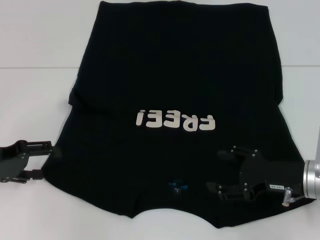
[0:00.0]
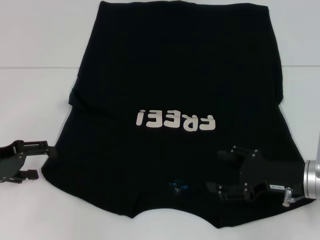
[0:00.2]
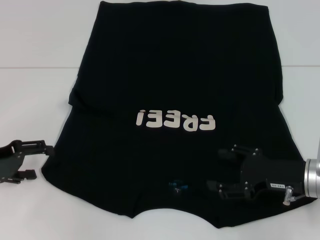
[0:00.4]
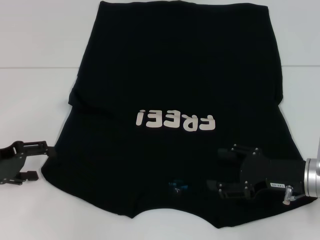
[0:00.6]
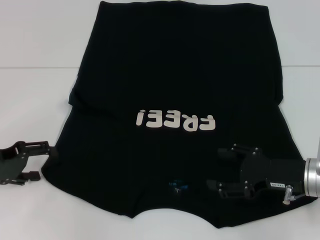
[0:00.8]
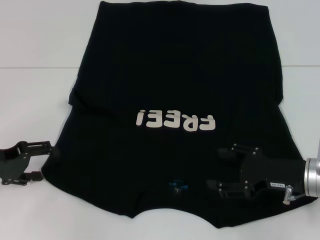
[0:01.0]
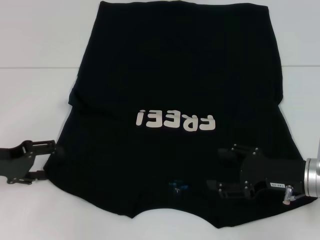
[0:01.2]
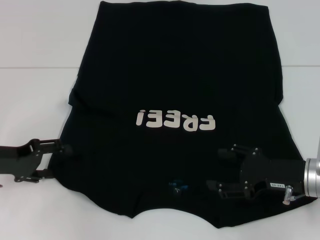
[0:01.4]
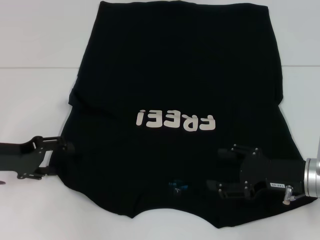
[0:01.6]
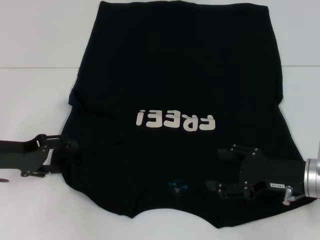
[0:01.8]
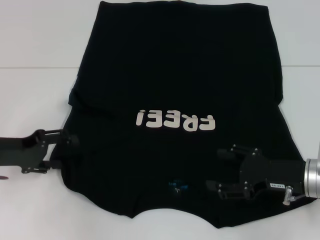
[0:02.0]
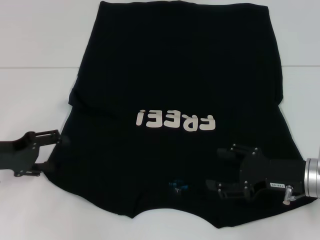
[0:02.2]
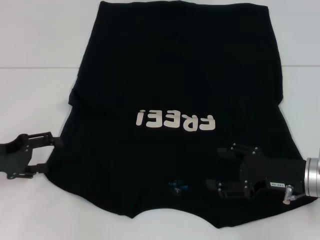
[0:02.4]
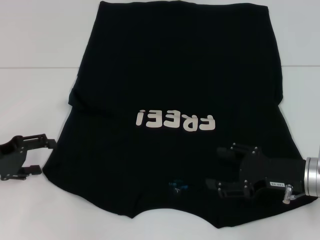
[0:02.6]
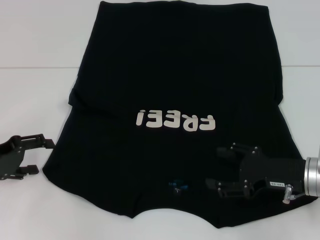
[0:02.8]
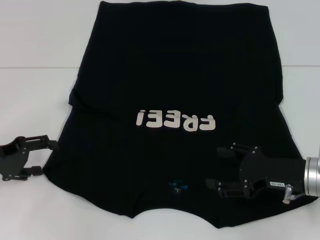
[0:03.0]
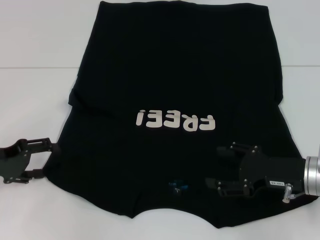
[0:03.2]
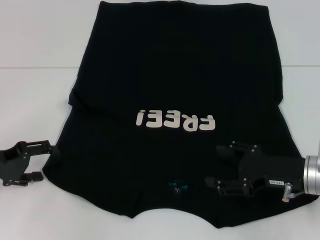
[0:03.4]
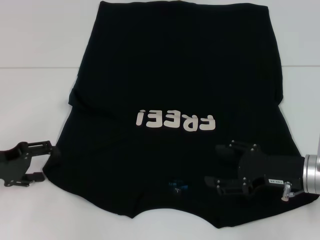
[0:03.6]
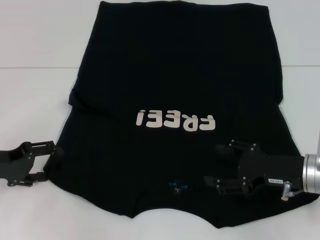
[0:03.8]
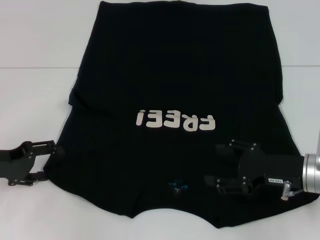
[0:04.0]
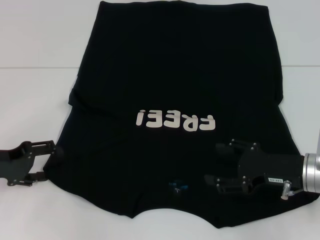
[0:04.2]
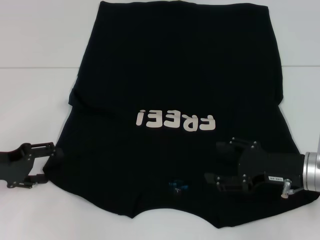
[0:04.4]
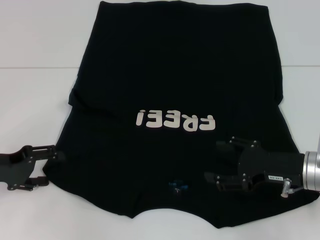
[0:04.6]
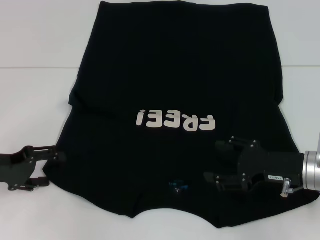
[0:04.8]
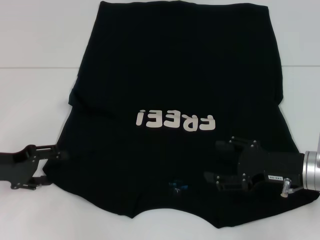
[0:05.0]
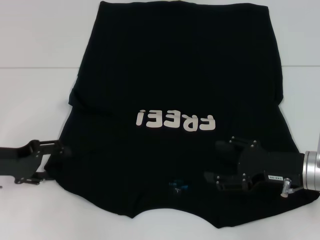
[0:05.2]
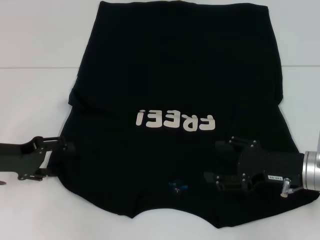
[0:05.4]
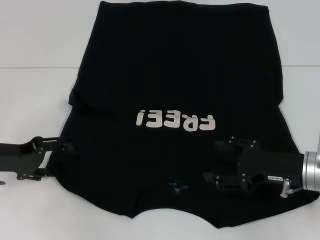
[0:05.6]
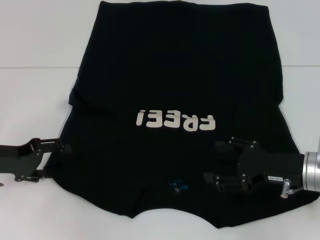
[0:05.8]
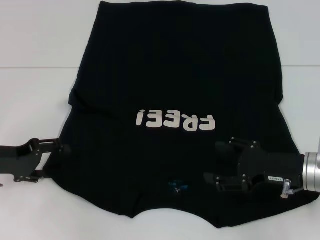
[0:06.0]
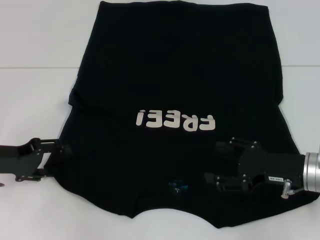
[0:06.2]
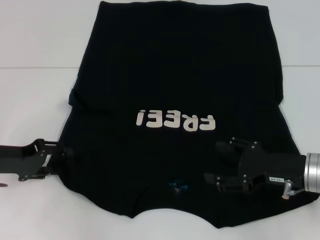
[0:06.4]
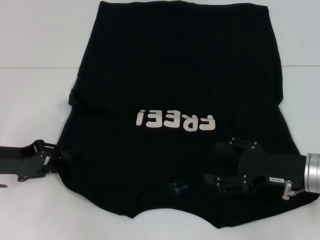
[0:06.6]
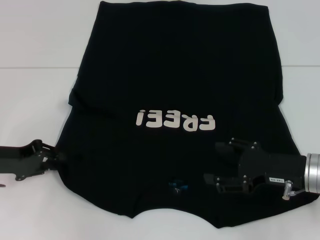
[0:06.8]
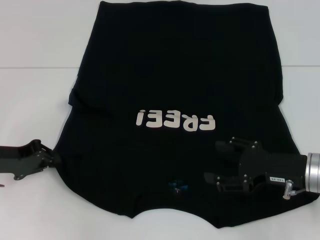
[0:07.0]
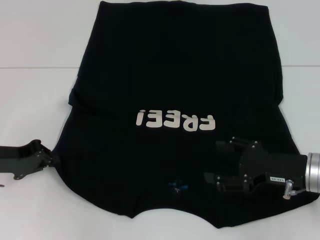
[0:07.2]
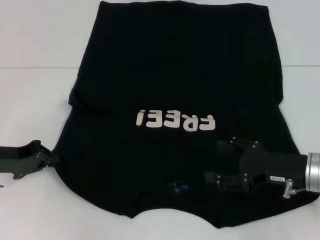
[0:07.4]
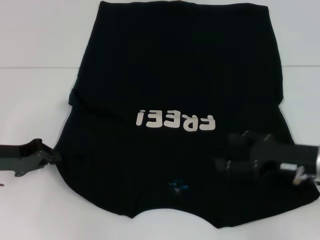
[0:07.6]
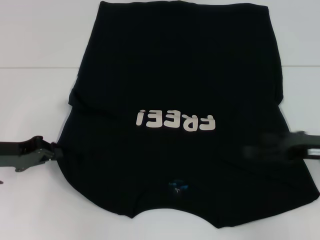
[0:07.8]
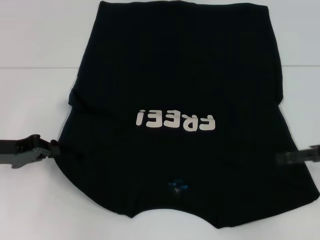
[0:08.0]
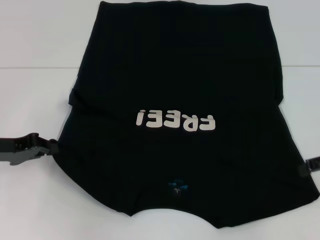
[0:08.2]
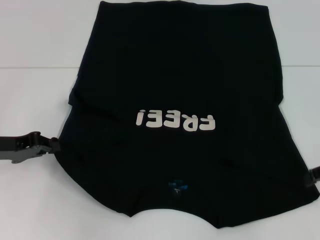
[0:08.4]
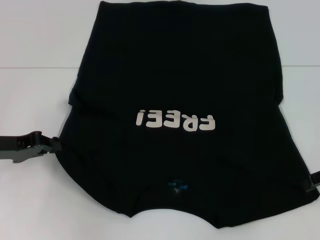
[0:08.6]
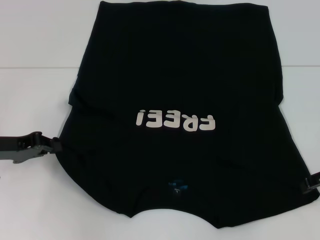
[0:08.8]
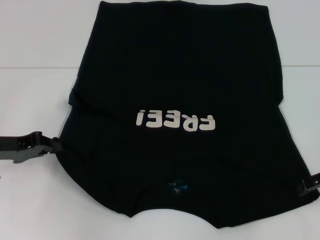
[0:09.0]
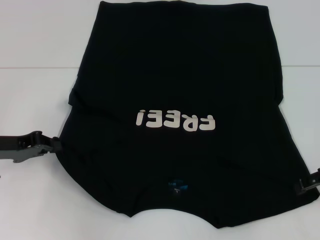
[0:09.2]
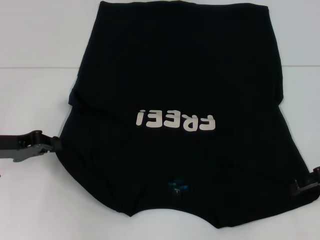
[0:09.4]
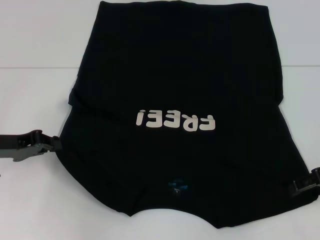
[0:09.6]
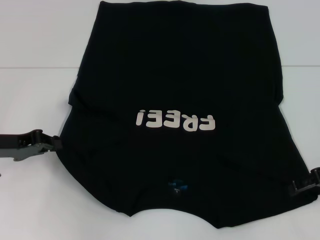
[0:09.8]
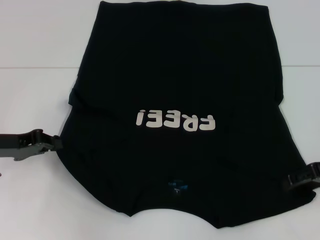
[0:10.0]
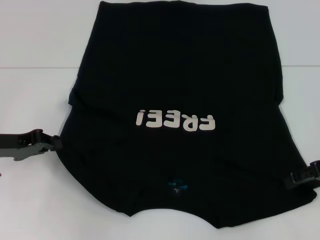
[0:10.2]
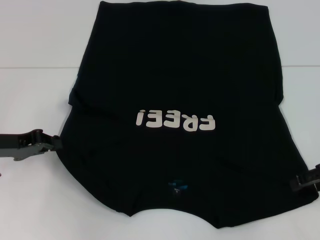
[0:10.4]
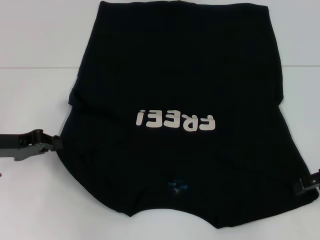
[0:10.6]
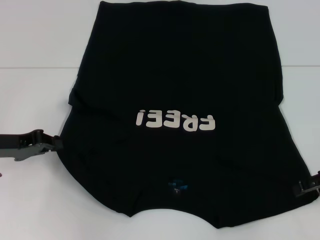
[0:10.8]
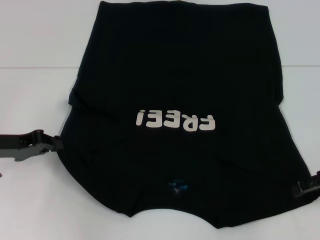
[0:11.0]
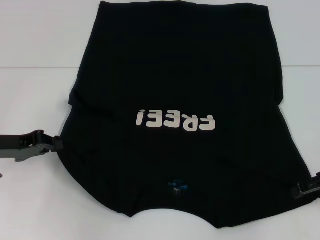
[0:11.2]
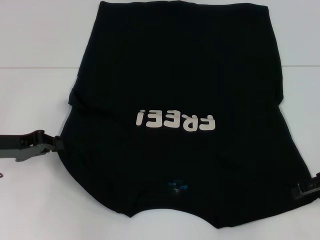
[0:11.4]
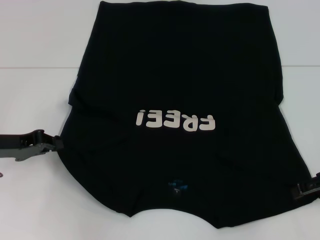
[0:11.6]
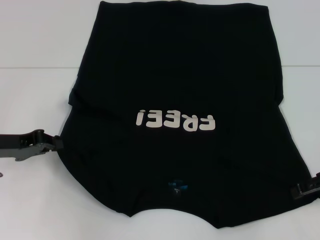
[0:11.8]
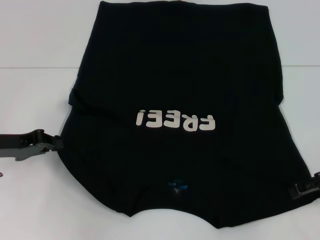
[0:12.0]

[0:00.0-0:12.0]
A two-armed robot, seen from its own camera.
Step, 0:00.0 to 0:07.6: Grab the bottom left corner with your left hand.
0:00.0 to 0:03.0: The grippers make only small movements.
0:03.0 to 0:04.4: The two grippers keep their place.
0:04.4 to 0:06.0: The grippers make only small movements.
0:06.0 to 0:07.6: The left gripper closes.
0:07.6 to 0:09.0: The right gripper goes about 10 cm to the right and upward.
0:09.0 to 0:10.4: The grippers stay close to where they were, moving slightly.
0:10.4 to 0:12.0: Neither gripper changes place.

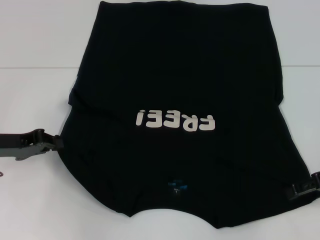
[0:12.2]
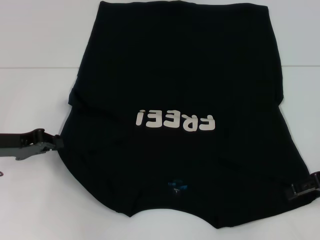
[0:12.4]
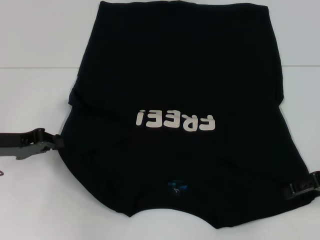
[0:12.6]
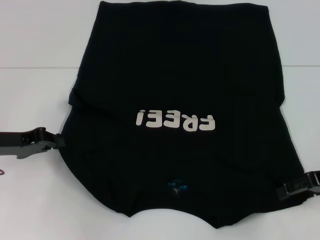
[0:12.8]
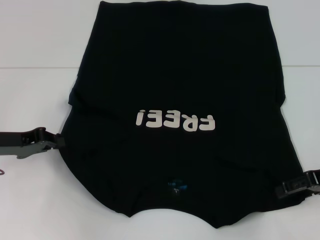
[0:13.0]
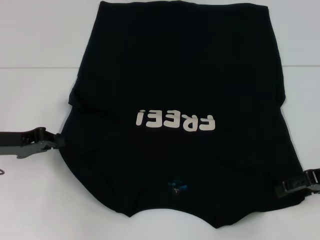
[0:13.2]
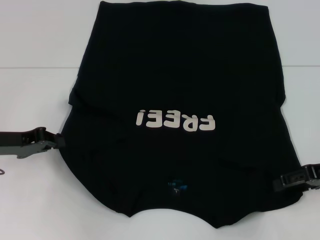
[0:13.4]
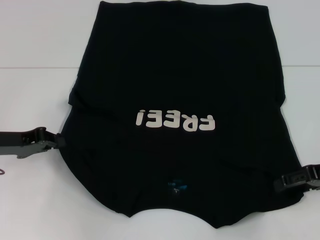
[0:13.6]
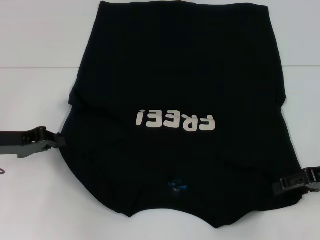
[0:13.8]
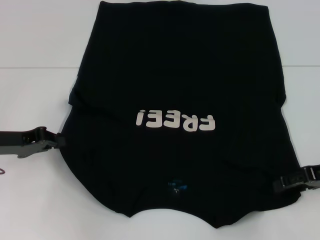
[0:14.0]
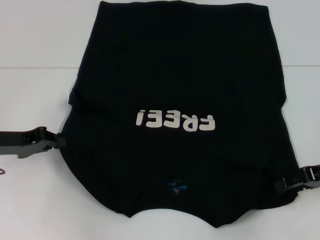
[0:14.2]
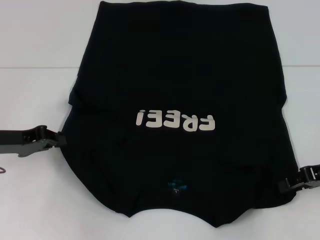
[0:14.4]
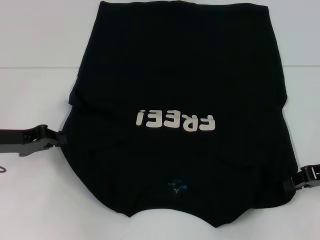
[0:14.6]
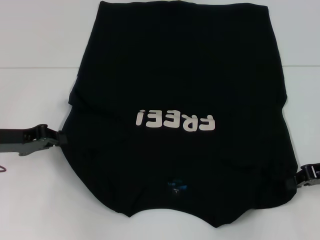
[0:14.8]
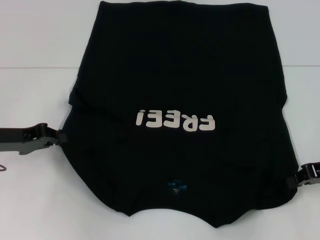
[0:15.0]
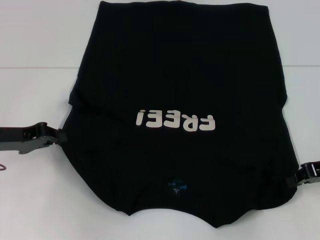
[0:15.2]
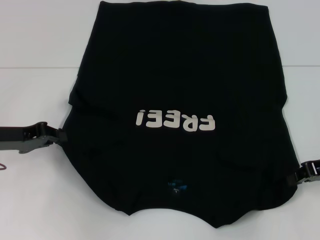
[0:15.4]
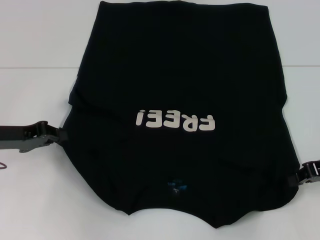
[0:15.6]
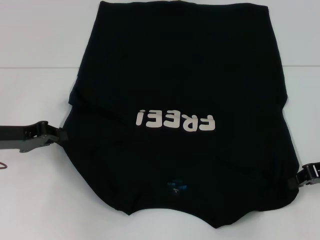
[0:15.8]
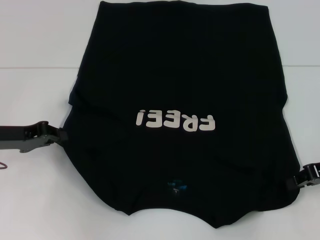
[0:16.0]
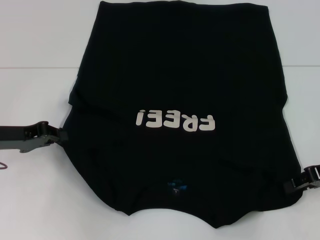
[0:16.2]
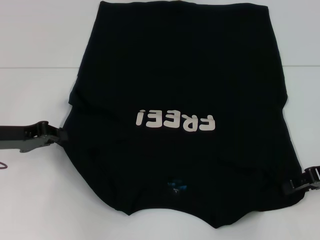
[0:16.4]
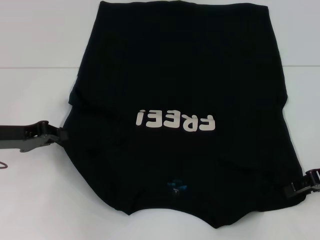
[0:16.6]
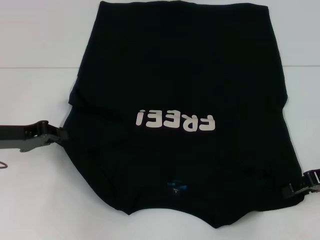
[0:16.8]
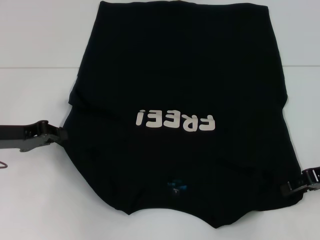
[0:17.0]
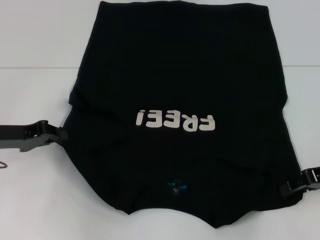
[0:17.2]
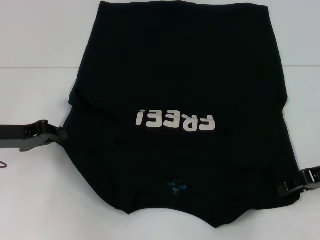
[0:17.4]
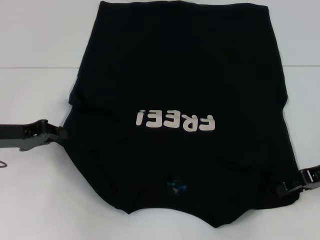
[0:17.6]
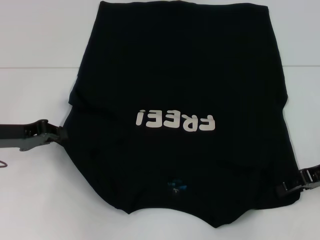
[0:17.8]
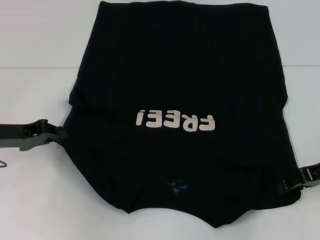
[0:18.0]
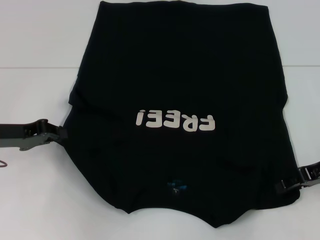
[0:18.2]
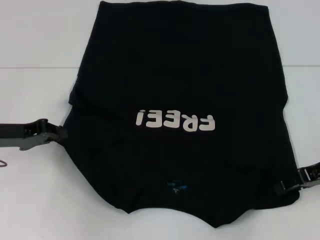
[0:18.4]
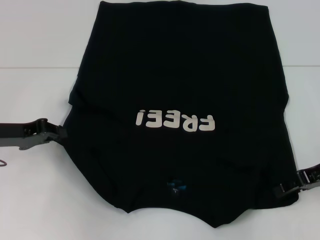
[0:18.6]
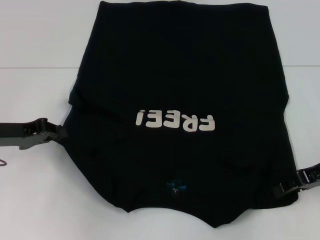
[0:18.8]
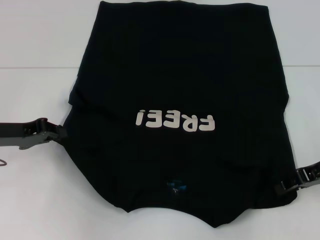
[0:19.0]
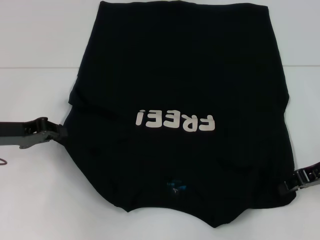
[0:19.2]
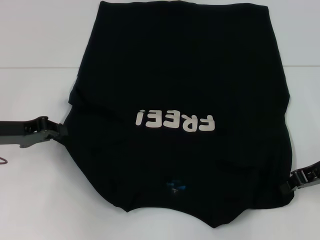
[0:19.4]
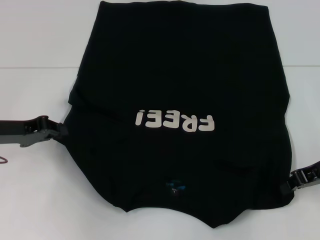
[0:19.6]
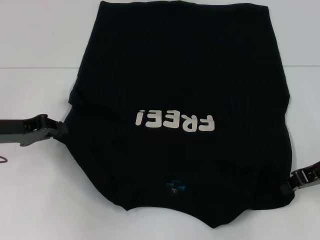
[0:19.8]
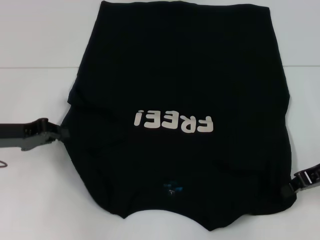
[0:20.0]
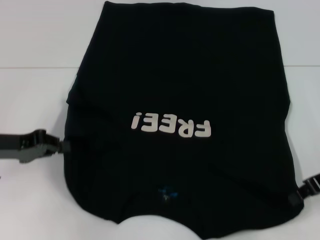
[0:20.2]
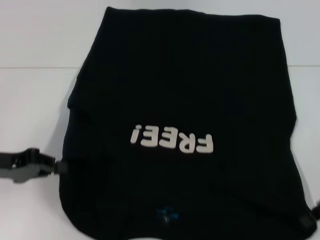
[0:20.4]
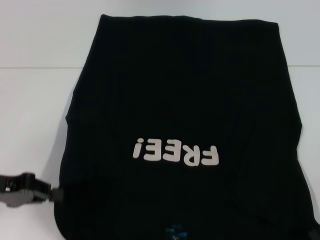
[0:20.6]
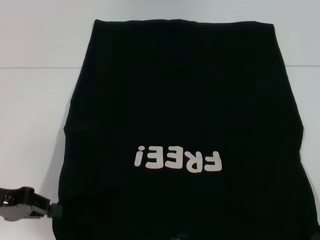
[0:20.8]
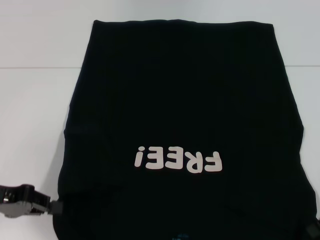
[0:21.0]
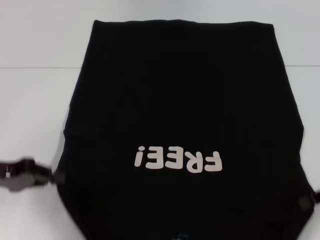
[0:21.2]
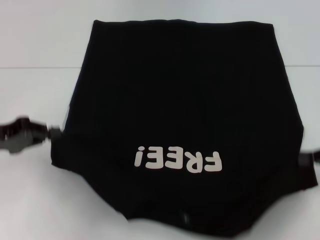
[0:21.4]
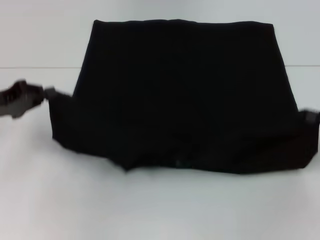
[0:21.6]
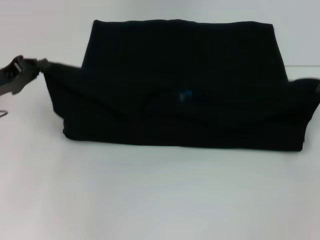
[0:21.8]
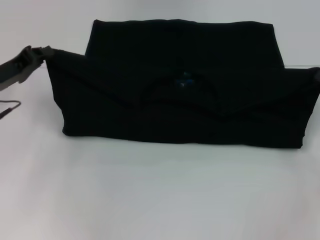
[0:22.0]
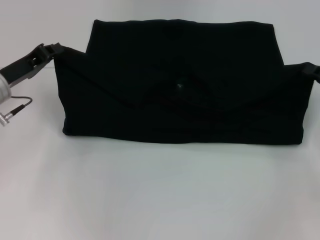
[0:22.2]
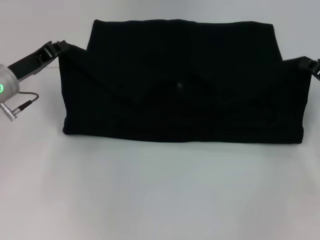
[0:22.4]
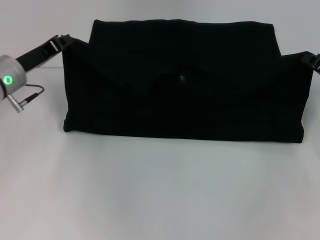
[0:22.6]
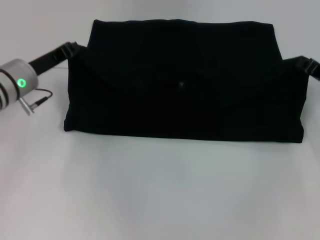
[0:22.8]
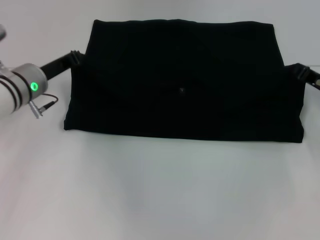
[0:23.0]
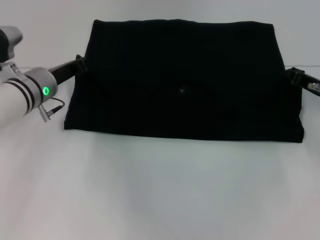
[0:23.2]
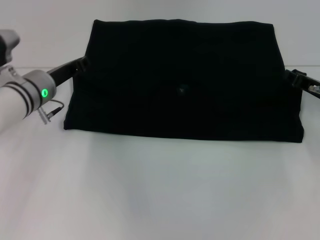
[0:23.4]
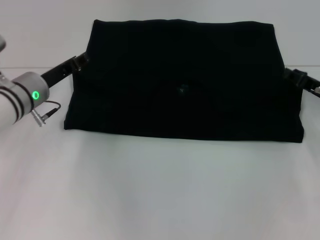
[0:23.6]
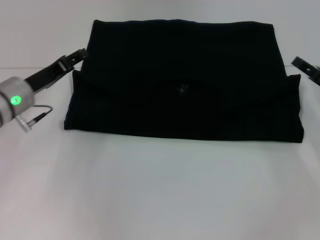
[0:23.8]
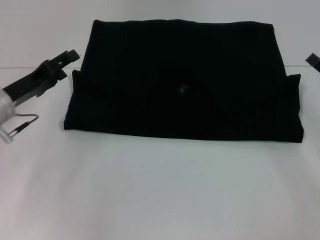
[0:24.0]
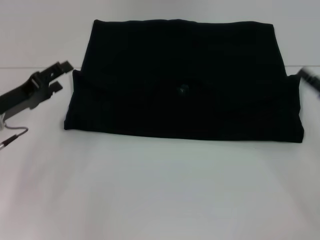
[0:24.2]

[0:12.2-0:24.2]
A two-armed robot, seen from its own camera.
Step, 0:12.2 to 0:19.8: Grab the bottom right corner with your right hand.
Step, 0:20.0 to 0:23.8: Fold the clothes with your left hand.
Step, 0:20.0 to 0:23.8: Fold the clothes with your right hand.
0:12.2 to 0:13.8: There are only small adjustments of the grippers.
0:13.8 to 0:15.2: The right gripper closes.
0:15.2 to 0:16.6: The right gripper opens its fingers.
0:16.6 to 0:18.2: The grippers stay close to where they were, moving slightly.
0:18.2 to 0:19.8: The right gripper closes its fingers.
0:19.8 to 0:21.2: The left gripper travels backward by approximately 5 cm, while the right gripper moves some 5 cm.
0:21.2 to 0:22.6: The left gripper moves forward and to the right, about 15 cm. The right gripper moves forward, some 10 cm.
0:22.6 to 0:24.2: The grippers both shift backward by approximately 5 cm. The left gripper opens its fingers; the right gripper opens up.
